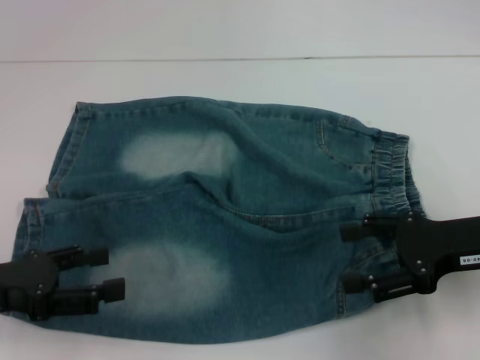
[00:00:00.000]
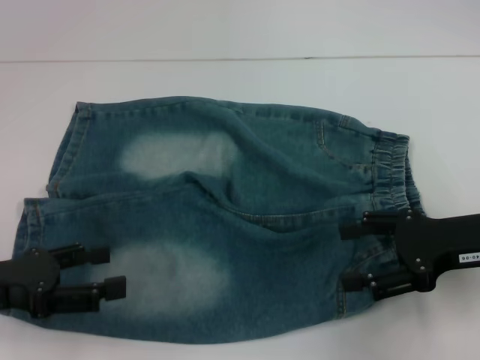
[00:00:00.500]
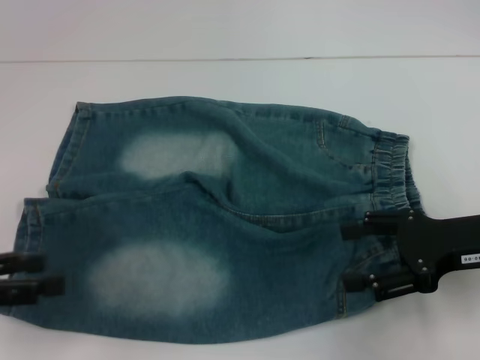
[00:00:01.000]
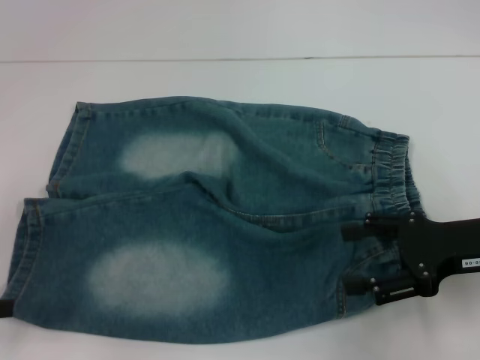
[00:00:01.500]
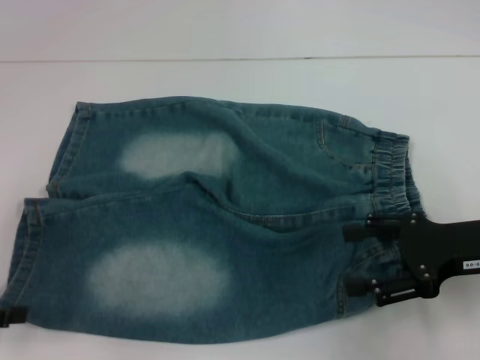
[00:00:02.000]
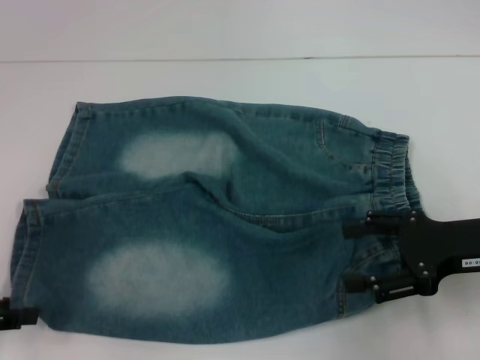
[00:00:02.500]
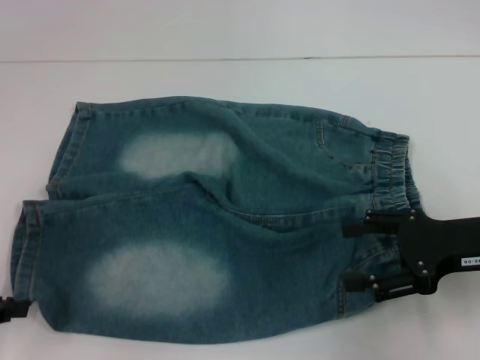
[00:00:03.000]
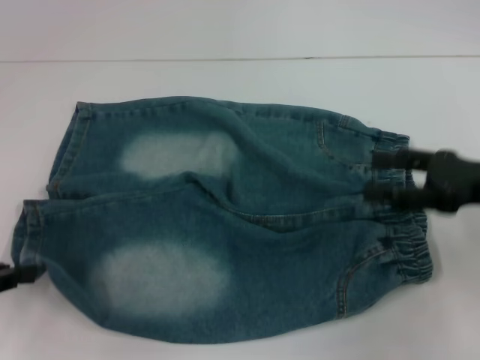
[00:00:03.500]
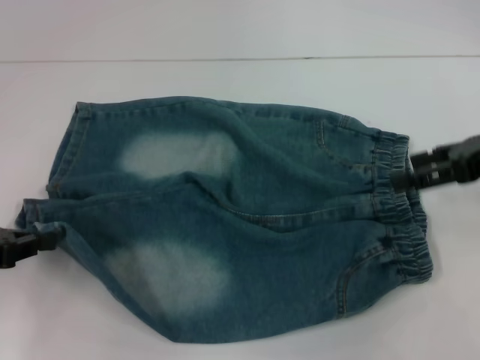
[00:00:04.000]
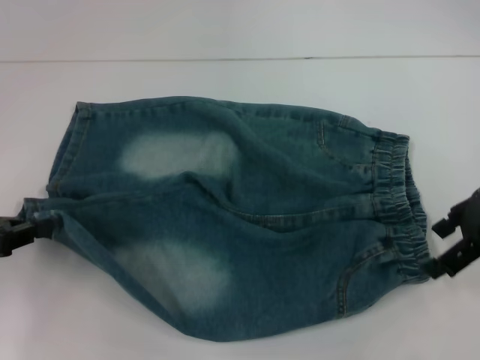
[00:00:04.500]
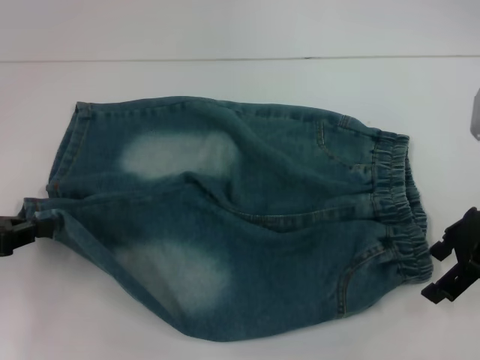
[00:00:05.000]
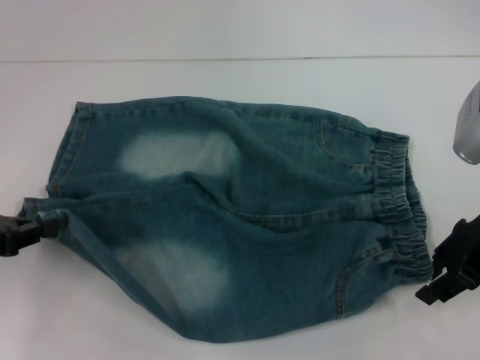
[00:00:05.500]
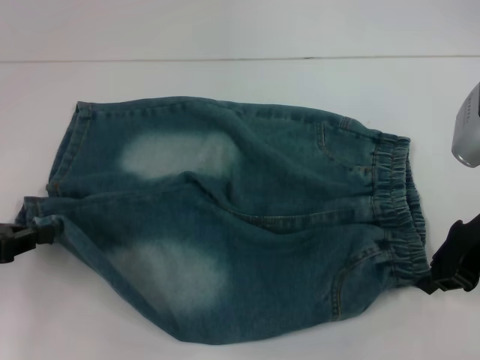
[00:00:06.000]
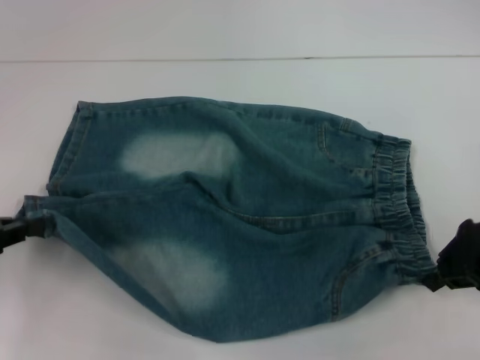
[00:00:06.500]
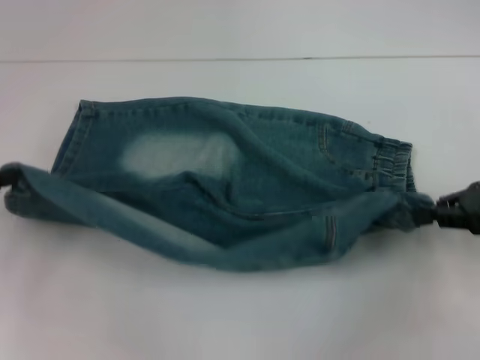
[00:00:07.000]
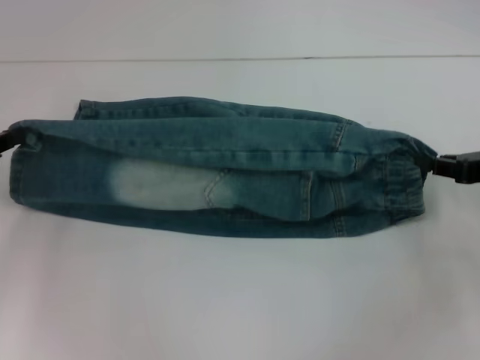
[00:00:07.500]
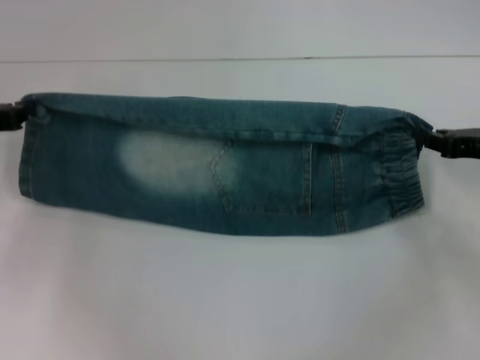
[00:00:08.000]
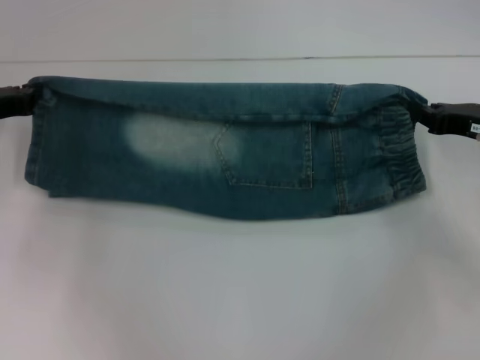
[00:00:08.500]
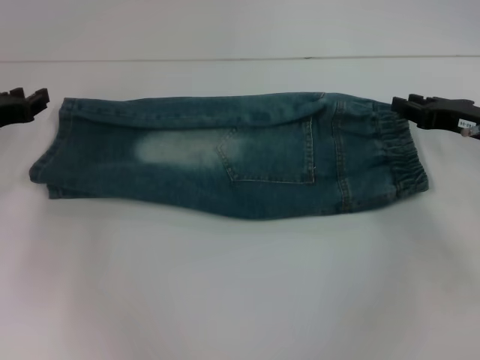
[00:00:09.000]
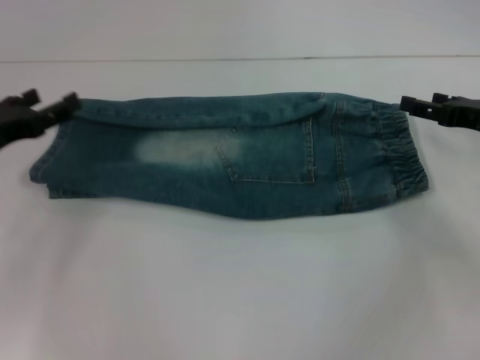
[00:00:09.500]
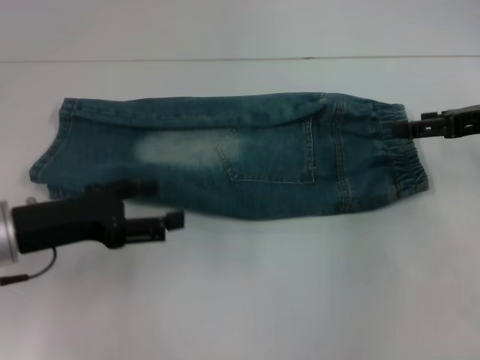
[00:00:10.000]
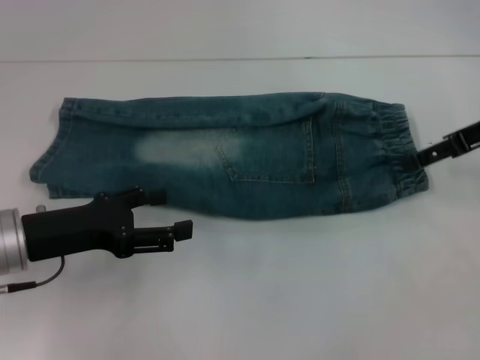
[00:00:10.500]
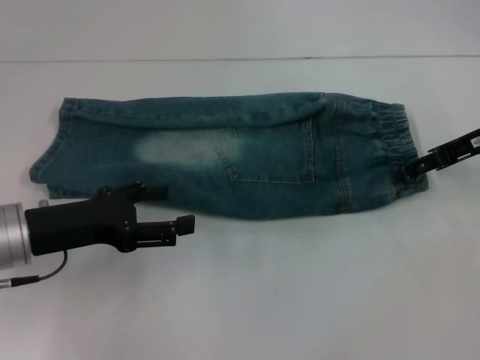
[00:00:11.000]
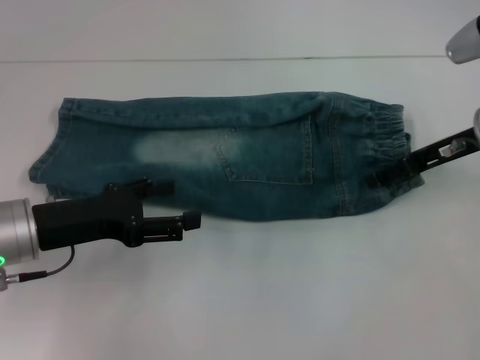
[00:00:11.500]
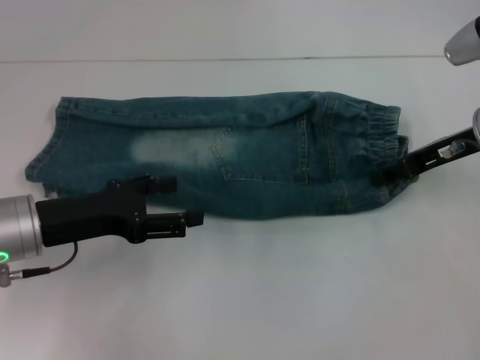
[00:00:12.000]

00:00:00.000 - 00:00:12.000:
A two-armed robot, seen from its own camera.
Step, 00:00:00.000 - 00:00:03.000: Grab the lower left pant leg with your left hand.
Step, 00:00:03.500 - 00:00:06.000: Hold the lower right waistband with your right hand.
Step, 00:00:06.500 - 00:00:09.000: Fold upward with your right hand.
00:00:00.000 - 00:00:02.000: The left gripper travels to the left by about 5 cm.
00:00:02.000 - 00:00:04.000: The left gripper moves roughly 5 cm, and closes up; the right gripper heads upward and forward, covering roughly 10 cm.
00:00:04.000 - 00:00:06.000: The right gripper travels to the left by roughly 5 cm, and closes.
00:00:06.000 - 00:00:08.000: The right gripper goes some 5 cm to the right, while the left gripper travels forward by some 10 cm.
00:00:08.000 - 00:00:10.000: The left gripper shifts some 10 cm to the right and backward, and opens, while the right gripper is displaced upward by some 5 cm, and opens its fingers.
00:00:10.000 - 00:00:12.000: The right gripper is displaced to the left by approximately 5 cm.

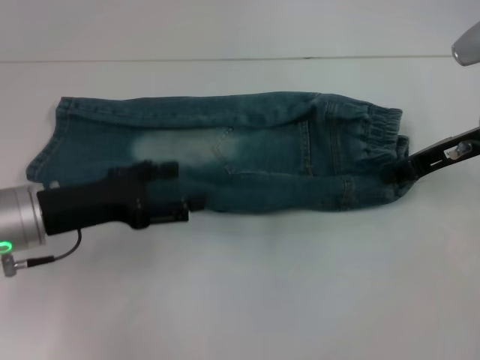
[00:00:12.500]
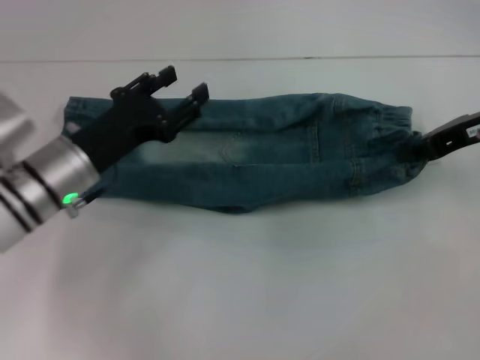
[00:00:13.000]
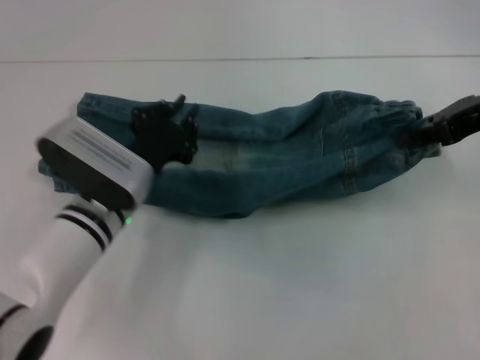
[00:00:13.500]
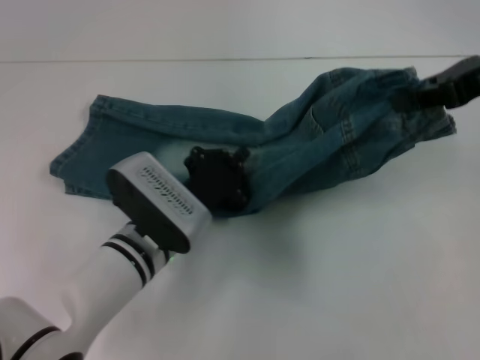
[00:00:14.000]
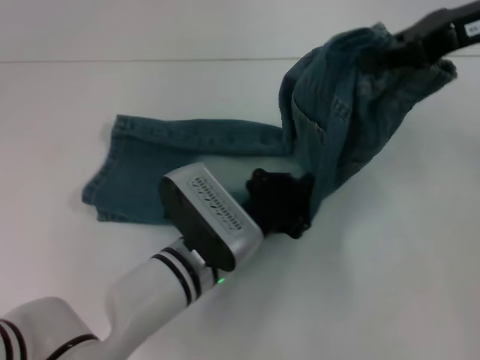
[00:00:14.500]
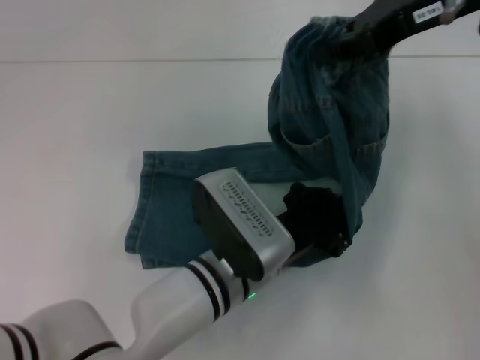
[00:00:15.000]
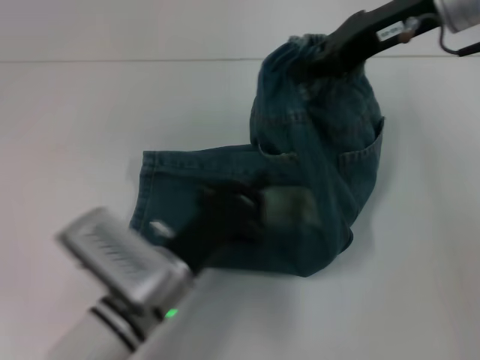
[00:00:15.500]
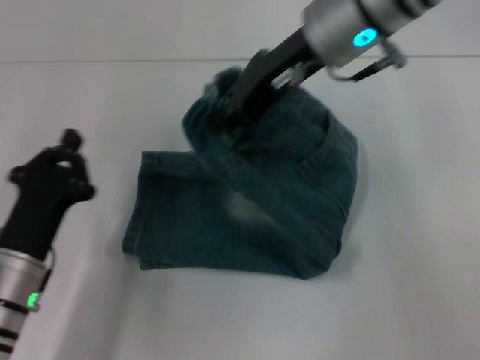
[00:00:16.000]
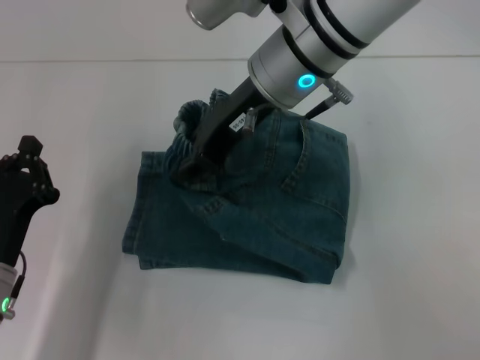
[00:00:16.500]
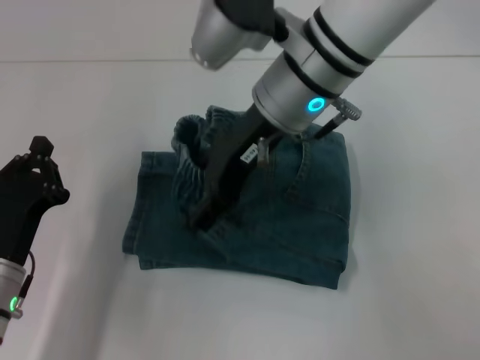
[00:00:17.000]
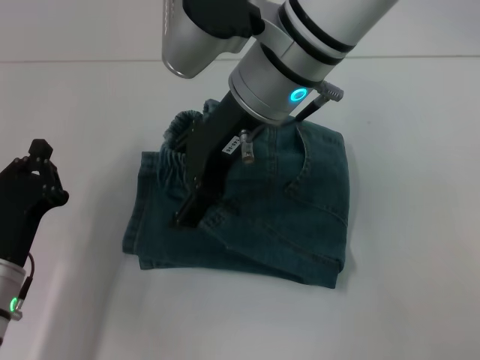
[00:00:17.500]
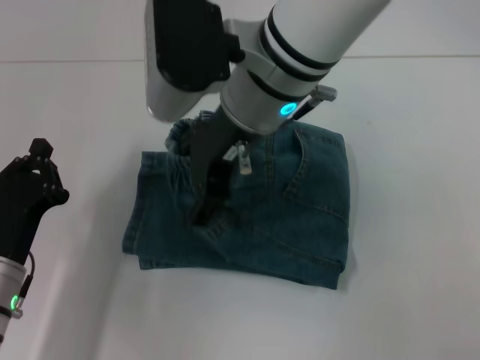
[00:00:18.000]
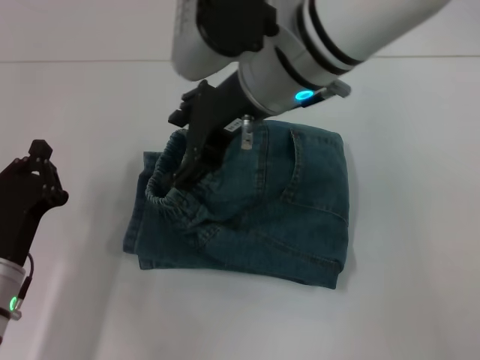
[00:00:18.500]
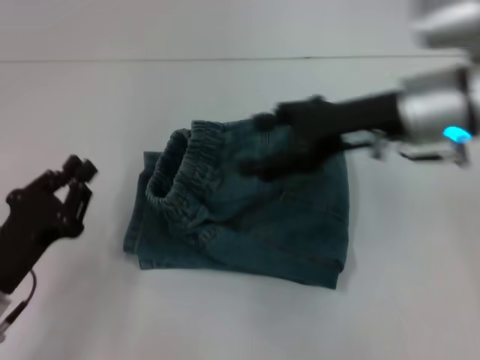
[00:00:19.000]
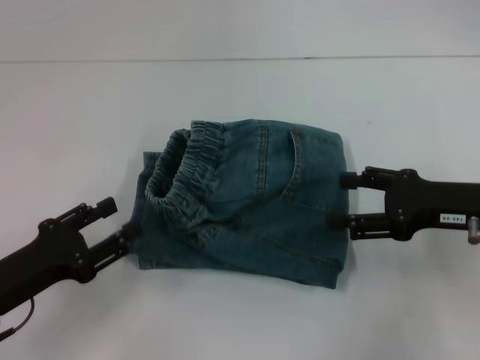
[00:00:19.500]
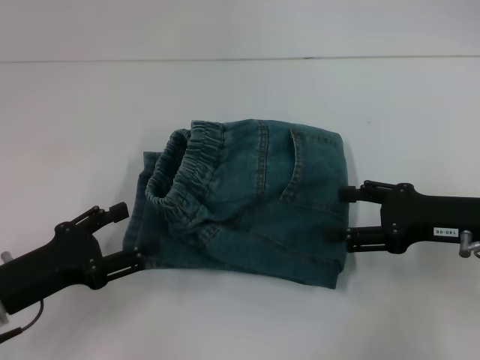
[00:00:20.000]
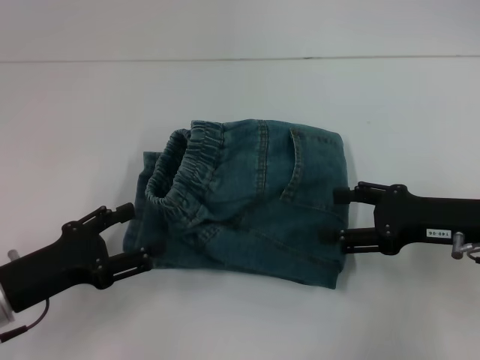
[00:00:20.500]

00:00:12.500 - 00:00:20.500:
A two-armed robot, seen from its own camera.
Step, 00:00:13.000 - 00:00:15.000: Press the middle of the pants with your left hand.
Step, 00:00:15.500 - 00:00:18.500: Fold to the left with your right hand.
00:00:12.500 - 00:00:14.500: The left gripper is displaced to the right by approximately 20 cm, and closes its fingers. The right gripper moves upward, approximately 15 cm.
00:00:14.500 - 00:00:16.500: Both grippers travel together to the left, some 20 cm.
00:00:16.500 - 00:00:18.500: The right gripper opens.
00:00:18.500 - 00:00:20.500: The right gripper shifts approximately 25 cm to the right and downward. The left gripper opens.
